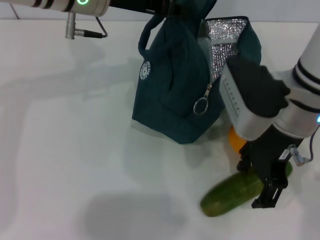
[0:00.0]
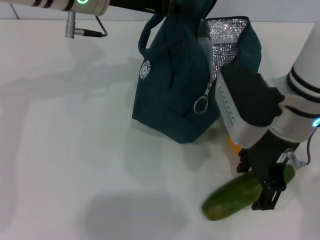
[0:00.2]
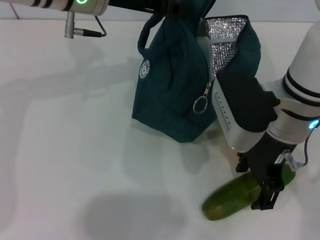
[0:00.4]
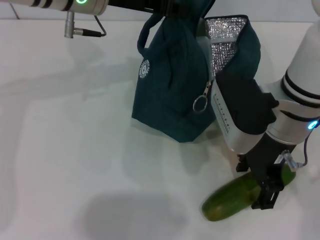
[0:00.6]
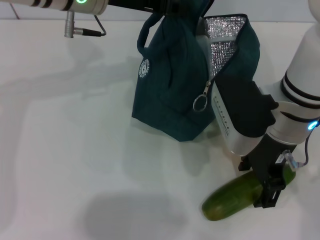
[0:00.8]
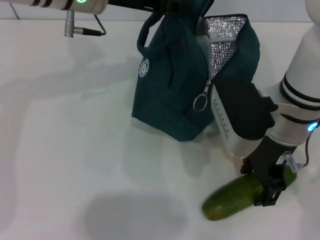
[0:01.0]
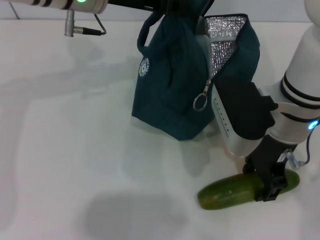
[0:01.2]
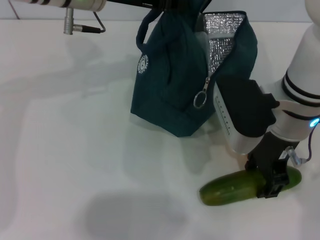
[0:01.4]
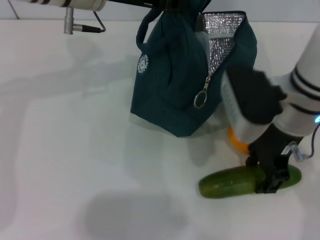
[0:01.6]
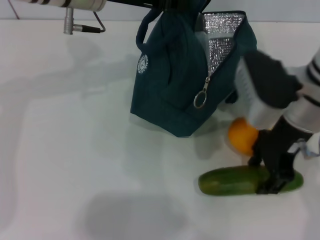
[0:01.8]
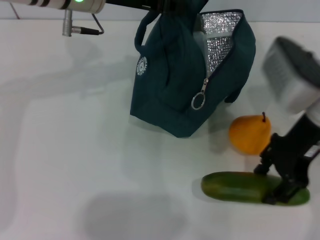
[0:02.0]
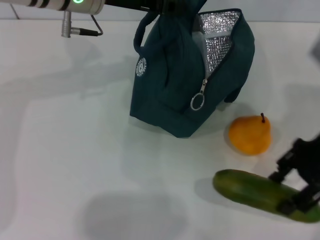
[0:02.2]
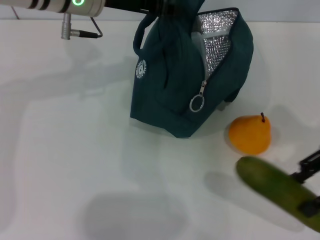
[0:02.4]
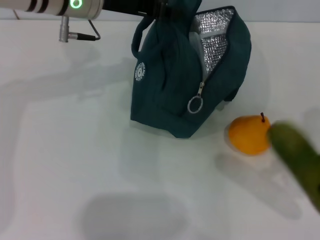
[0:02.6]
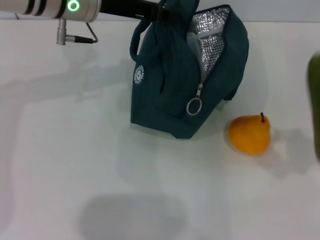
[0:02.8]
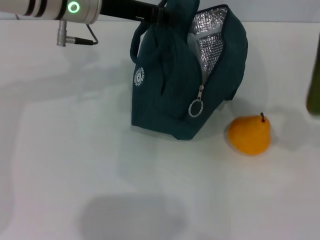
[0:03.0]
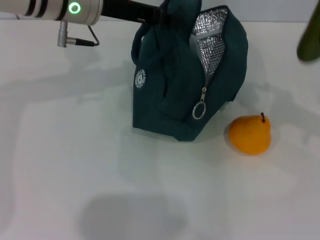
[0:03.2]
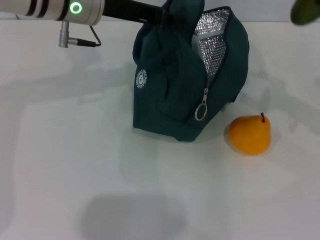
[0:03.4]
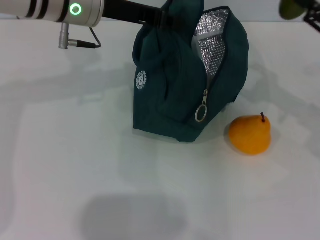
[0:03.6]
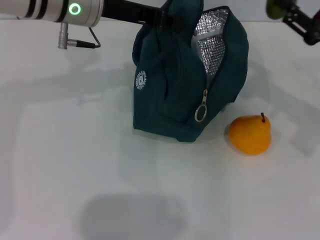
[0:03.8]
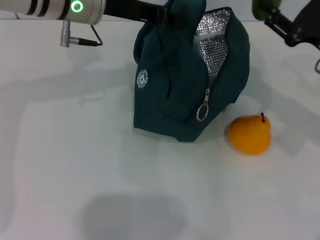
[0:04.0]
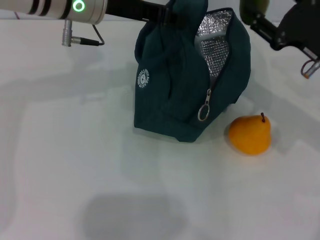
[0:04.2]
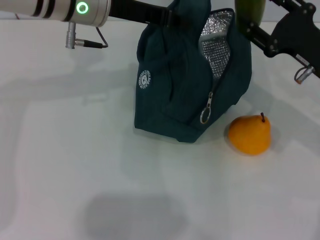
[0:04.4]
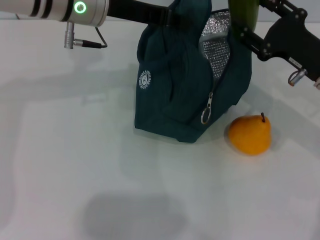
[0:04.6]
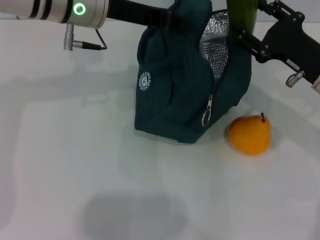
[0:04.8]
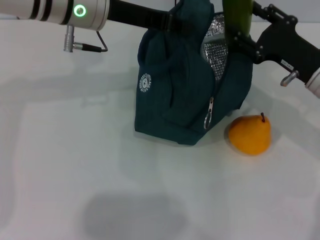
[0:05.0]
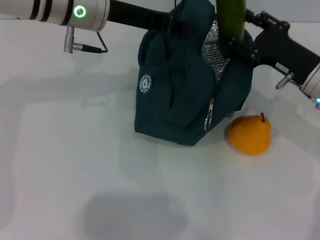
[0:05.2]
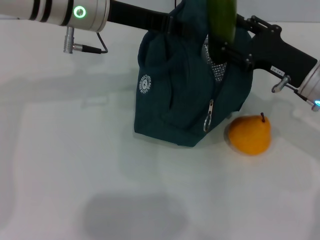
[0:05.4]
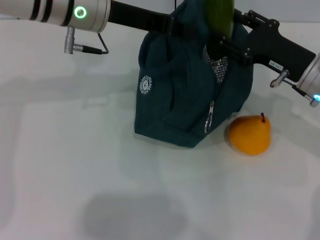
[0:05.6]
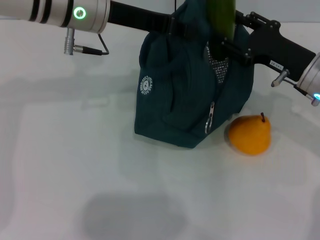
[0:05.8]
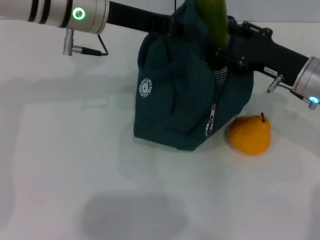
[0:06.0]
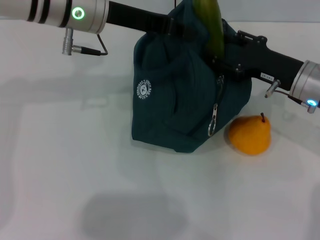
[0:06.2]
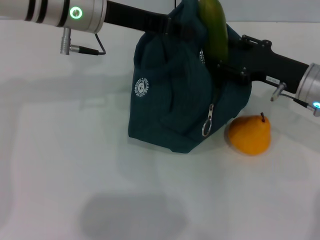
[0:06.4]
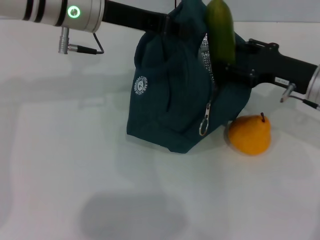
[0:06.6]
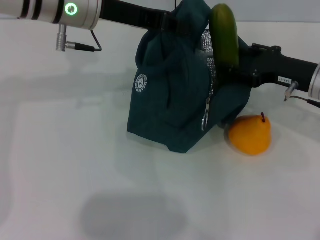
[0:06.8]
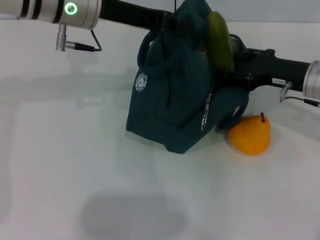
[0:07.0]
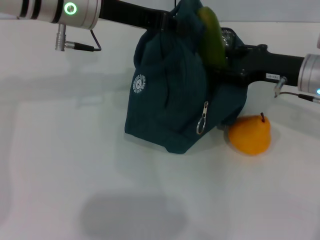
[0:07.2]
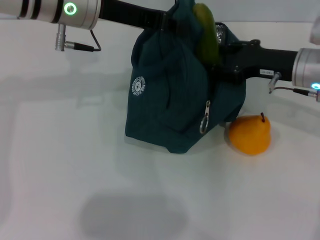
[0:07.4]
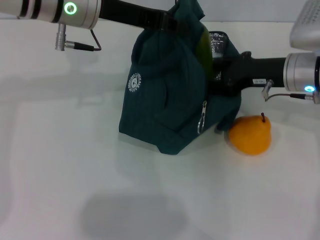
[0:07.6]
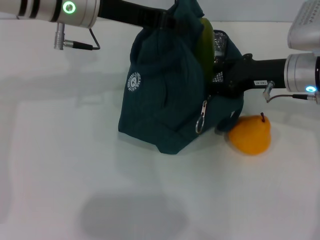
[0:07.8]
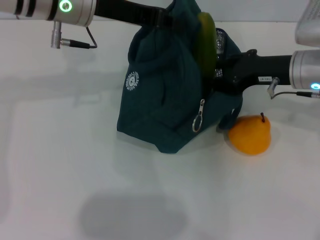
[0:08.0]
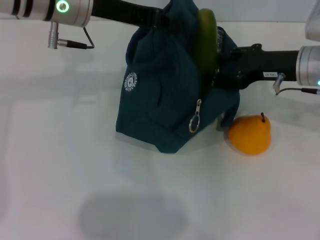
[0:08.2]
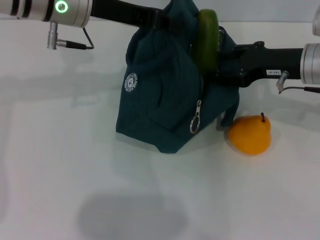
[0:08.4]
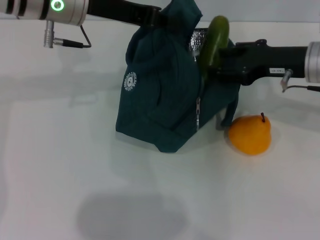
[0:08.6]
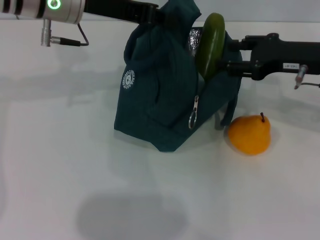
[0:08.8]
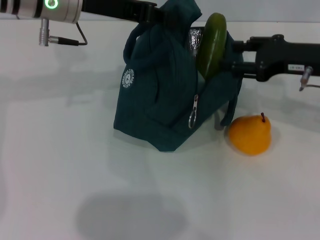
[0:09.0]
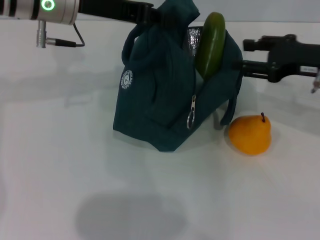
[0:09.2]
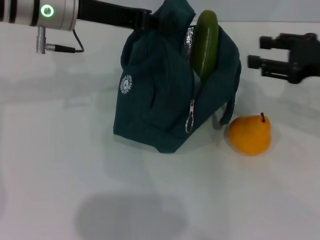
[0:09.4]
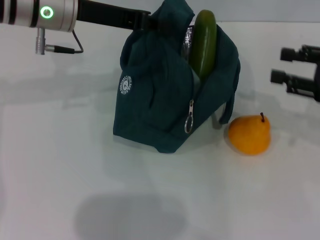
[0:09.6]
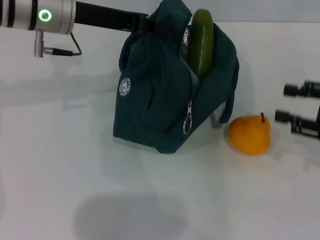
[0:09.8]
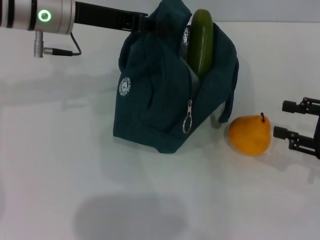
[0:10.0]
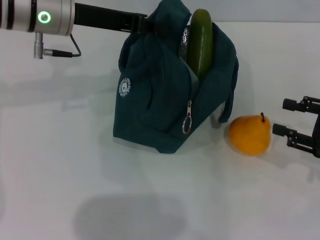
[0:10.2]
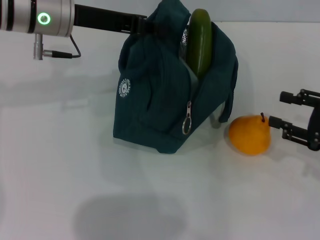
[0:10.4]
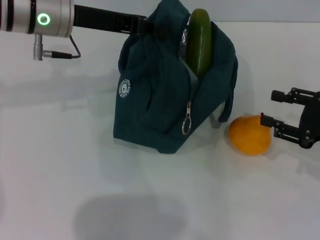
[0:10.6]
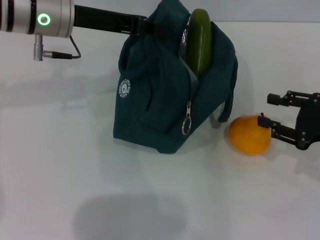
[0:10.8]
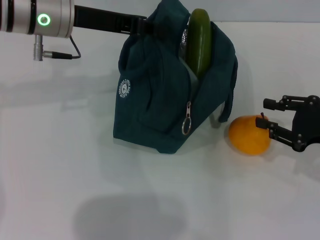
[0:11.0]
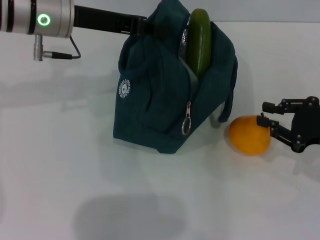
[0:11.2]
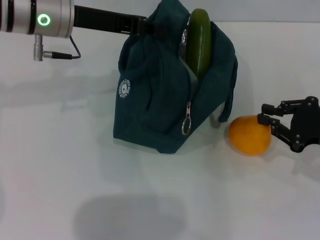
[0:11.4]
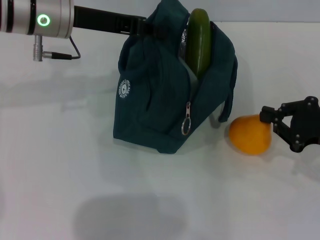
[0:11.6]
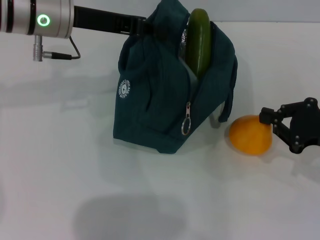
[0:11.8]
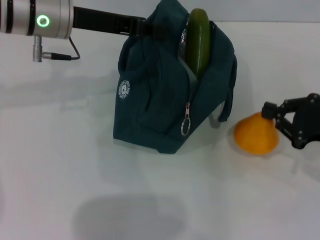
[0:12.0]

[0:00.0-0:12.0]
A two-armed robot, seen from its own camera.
Step, 0:01.4 to 0:09.2: Put the cucumber into the lunch bag with your right hand.
Step, 0:09.4 to 0:11.8: Grab the pear with your right hand.
0:00.0 to 0:01.6: The grippers make only small movements.
0:01.6 to 0:03.0: The right gripper shifts roughly 25 cm to the right.
0:03.0 to 0:04.4: The right gripper is displaced to the left, downward and forward by some 15 cm.
0:07.6 to 0:09.0: The right gripper changes place by roughly 5 cm.
0:09.0 to 0:10.4: The right gripper is displaced backward, to the right and downward by roughly 15 cm.
0:10.4 to 0:12.0: The right gripper closes up.

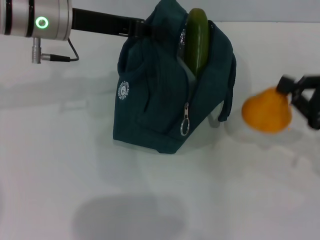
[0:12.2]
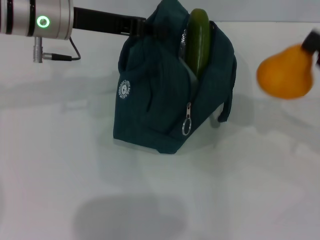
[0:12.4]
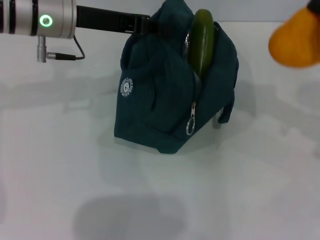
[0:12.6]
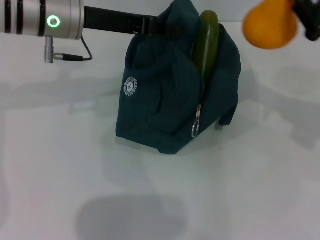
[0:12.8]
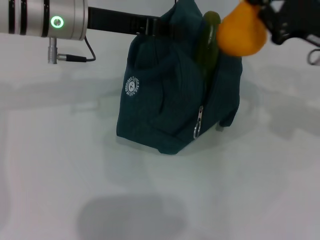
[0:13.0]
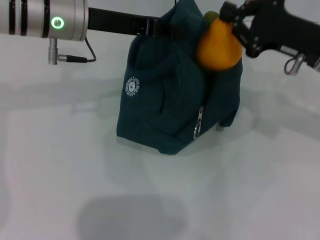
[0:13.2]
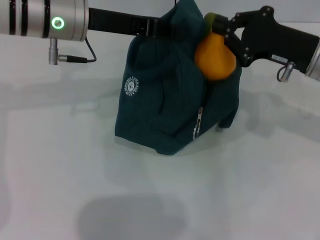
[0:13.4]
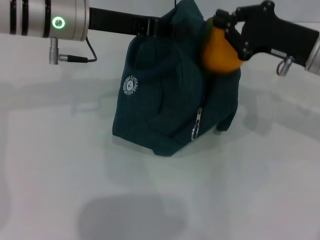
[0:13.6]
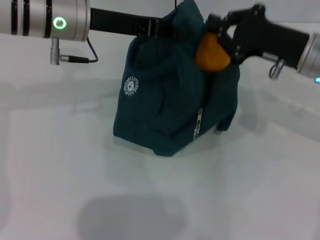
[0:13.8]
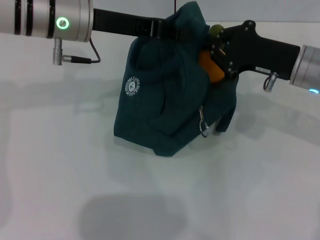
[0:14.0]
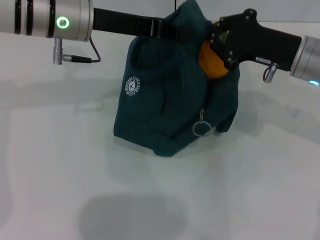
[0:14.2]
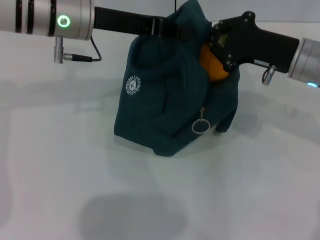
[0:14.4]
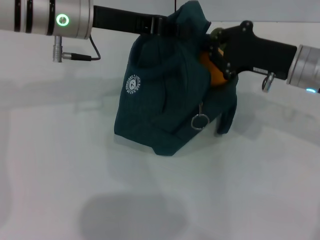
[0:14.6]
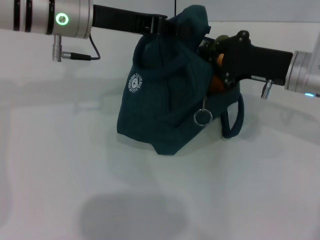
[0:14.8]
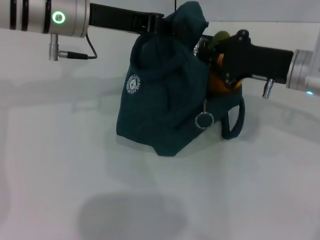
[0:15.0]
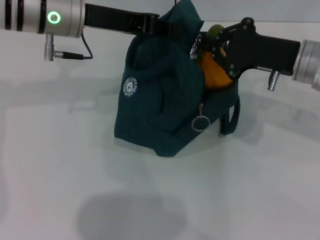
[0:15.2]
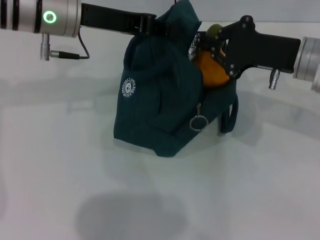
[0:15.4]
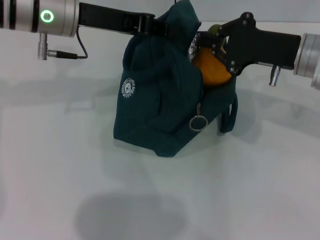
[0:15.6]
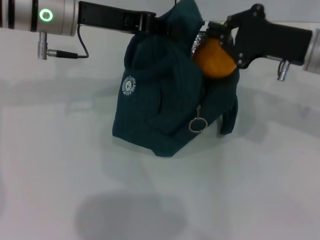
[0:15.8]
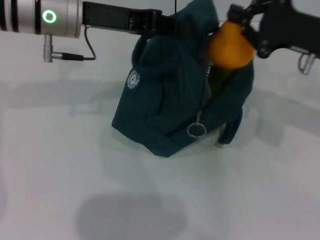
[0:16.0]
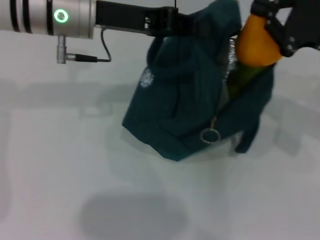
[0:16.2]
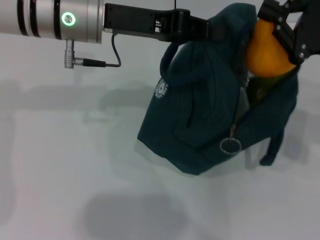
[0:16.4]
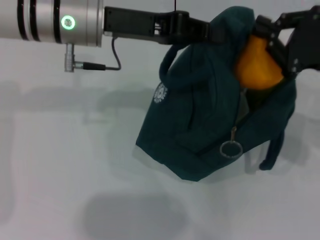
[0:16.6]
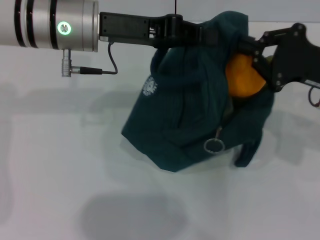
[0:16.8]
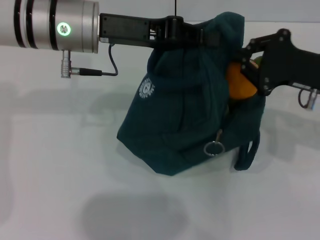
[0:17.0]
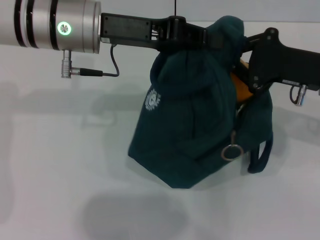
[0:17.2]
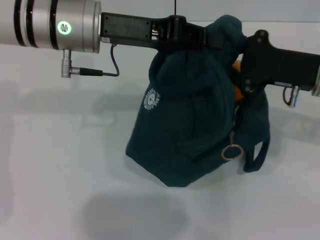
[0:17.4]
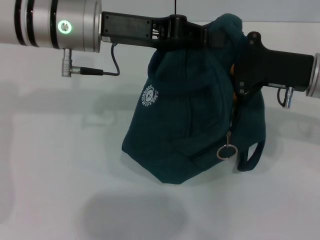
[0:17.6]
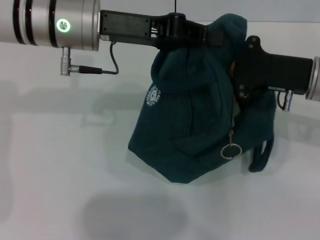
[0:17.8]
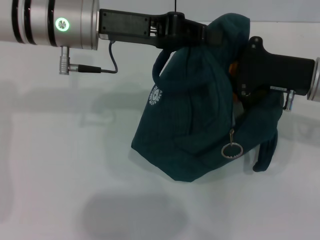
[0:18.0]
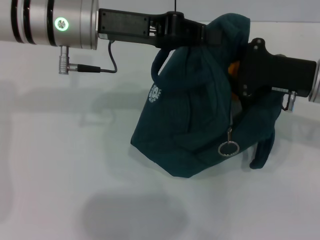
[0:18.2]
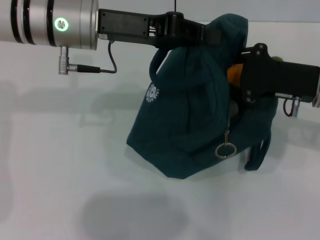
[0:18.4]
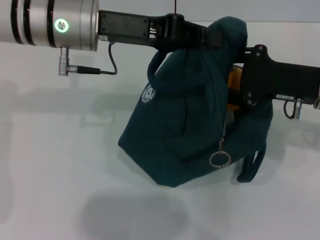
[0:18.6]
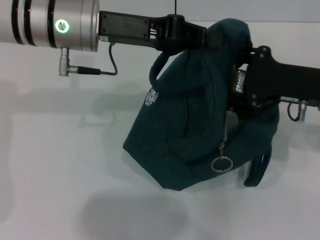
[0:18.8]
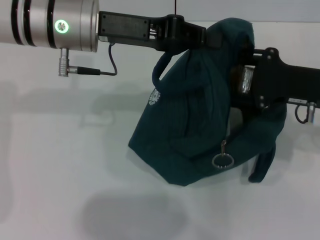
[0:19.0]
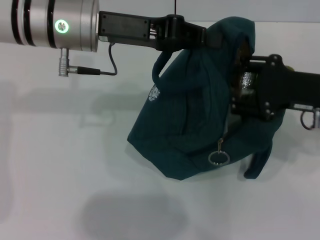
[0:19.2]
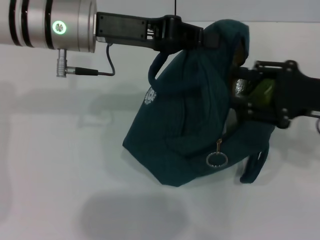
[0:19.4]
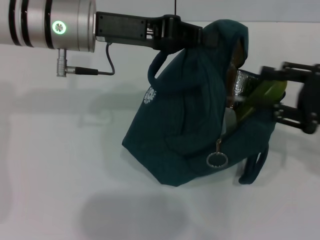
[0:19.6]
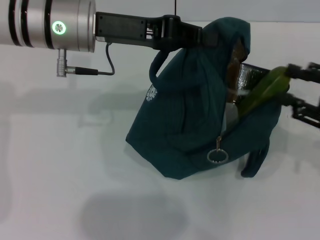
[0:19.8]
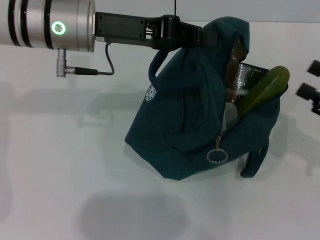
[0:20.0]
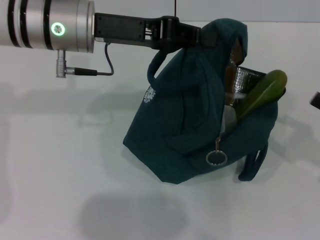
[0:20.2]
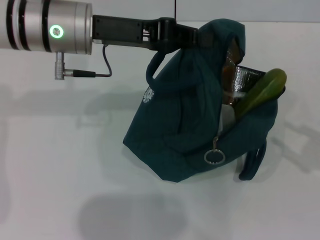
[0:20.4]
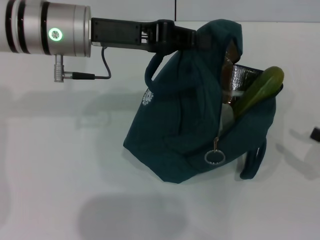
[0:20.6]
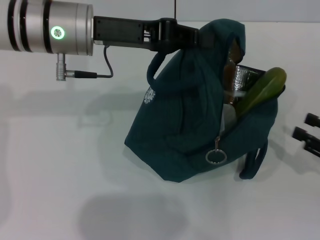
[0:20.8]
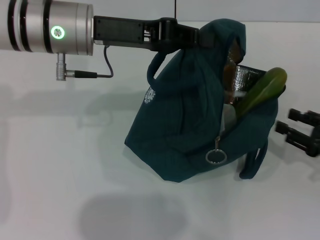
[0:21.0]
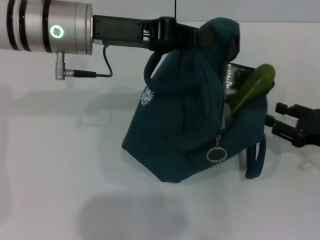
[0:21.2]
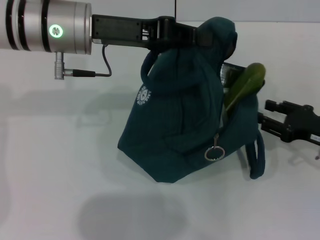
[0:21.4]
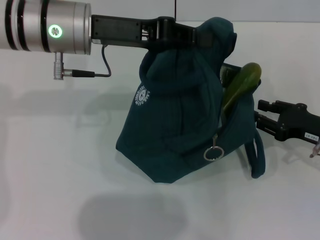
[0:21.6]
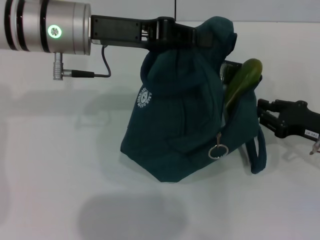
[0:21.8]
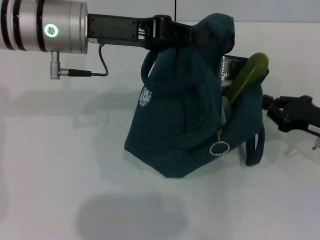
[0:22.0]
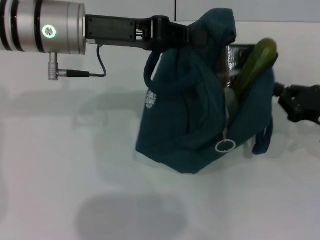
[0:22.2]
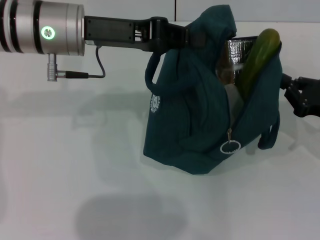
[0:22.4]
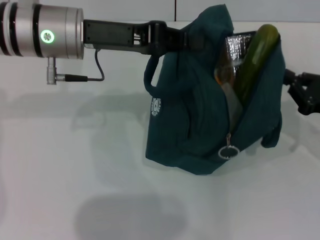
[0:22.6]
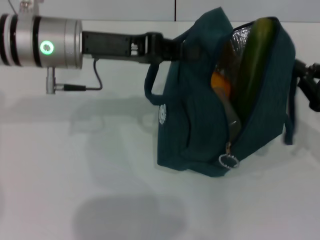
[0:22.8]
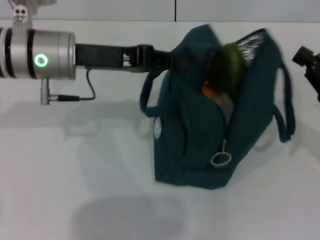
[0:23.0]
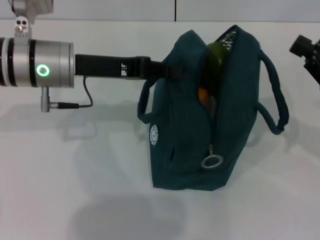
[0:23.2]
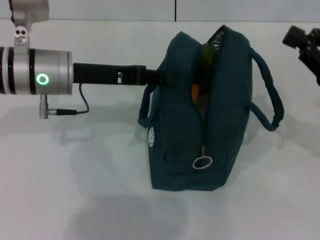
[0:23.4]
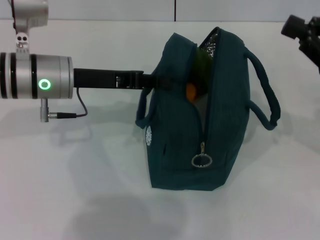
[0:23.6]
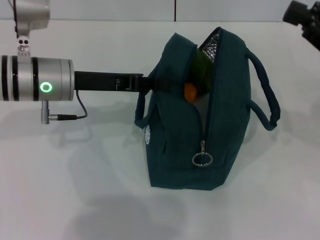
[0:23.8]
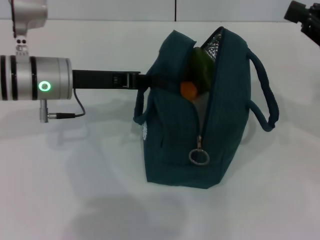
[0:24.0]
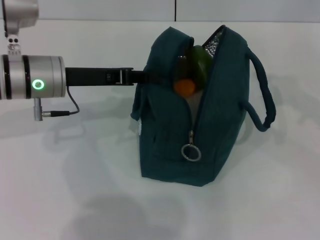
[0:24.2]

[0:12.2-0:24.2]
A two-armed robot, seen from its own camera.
Step, 0:12.2 to 0:19.4: Secure the lunch bag with your left hand.
Step, 0:19.6 to 0:22.8: Hold the lunch bag with your right hand.
0:12.2 to 0:13.8: The right gripper moves to the left and forward, about 15 cm.
0:13.8 to 0:15.2: The grippers make only small movements.
0:15.2 to 0:16.6: The right gripper travels to the right by some 5 cm.
0:16.6 to 0:18.2: The right gripper ends up about 5 cm from where it was.
0:18.2 to 0:19.8: The right gripper travels to the right and backward by about 10 cm, and opens.
0:19.8 to 0:21.2: The right gripper goes approximately 10 cm downward.
0:21.2 to 0:22.6: The right gripper closes up.
0:22.6 to 0:24.2: The left gripper goes roughly 5 cm downward. The right gripper moves upward, about 10 cm.
